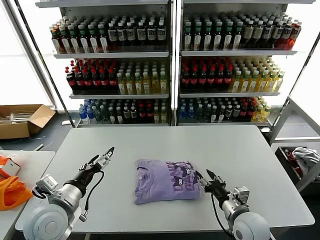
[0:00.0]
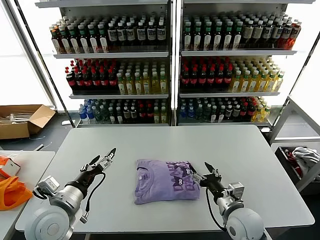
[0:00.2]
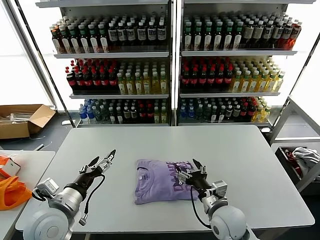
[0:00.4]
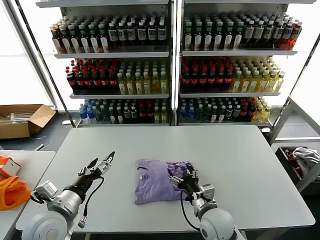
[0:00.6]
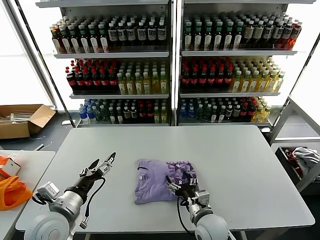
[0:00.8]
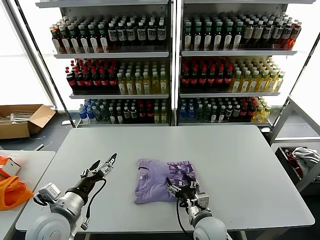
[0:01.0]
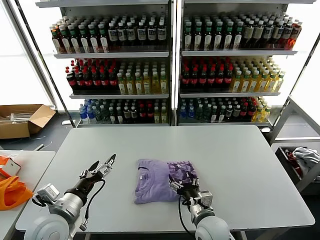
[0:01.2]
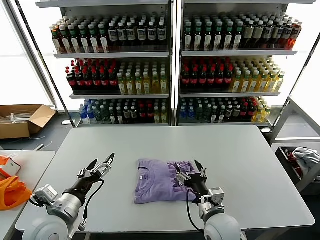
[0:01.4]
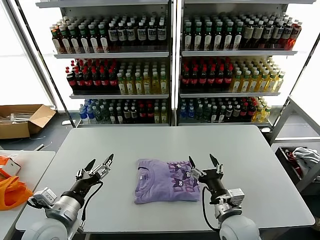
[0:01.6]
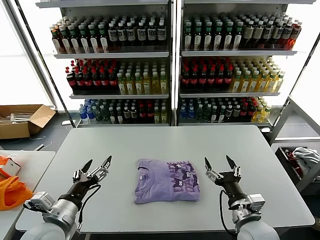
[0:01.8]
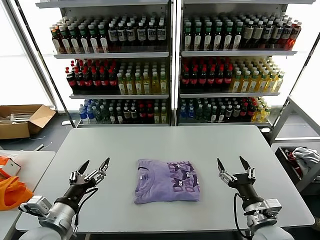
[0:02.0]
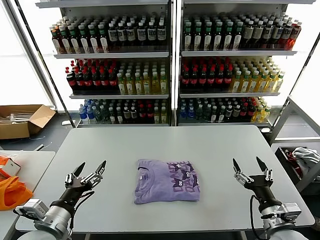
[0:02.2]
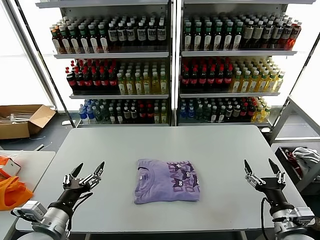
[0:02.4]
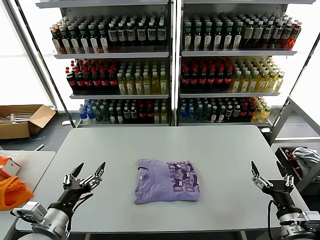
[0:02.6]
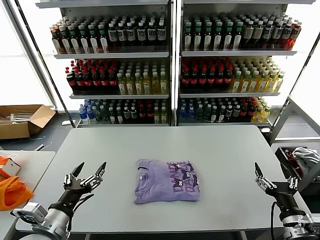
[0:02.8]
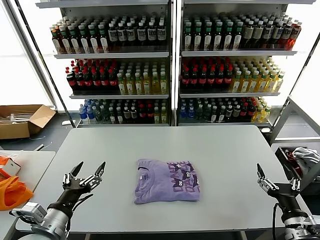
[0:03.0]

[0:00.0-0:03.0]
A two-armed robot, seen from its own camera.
Task of the whole recording: fold and organize the clothes.
0:00.0 to 0:01.6: The right gripper shifts about 5 cm to the left, and opens.
0:01.6 to 0:03.0: The right gripper moves to the right and backward, approximately 20 cm.
